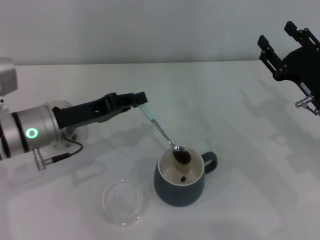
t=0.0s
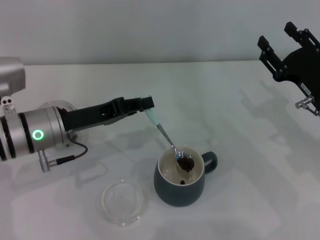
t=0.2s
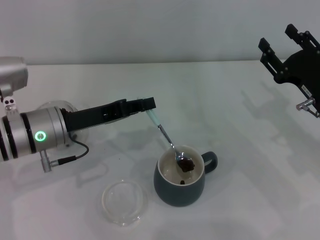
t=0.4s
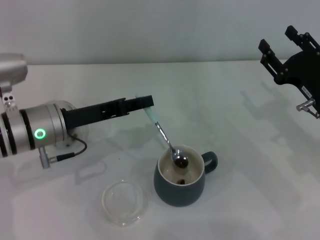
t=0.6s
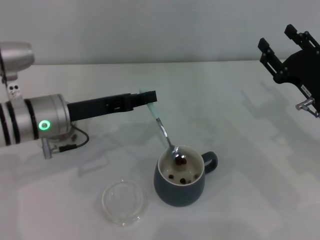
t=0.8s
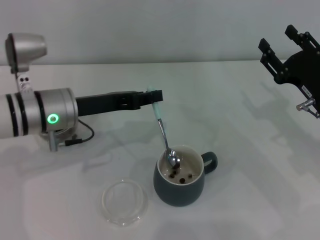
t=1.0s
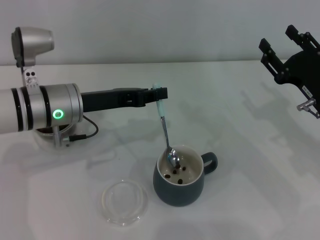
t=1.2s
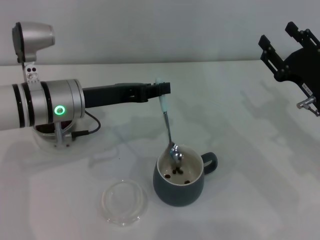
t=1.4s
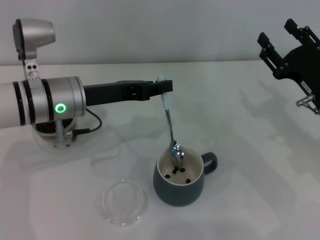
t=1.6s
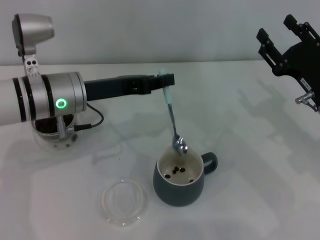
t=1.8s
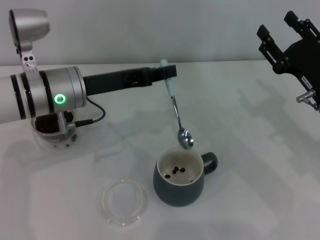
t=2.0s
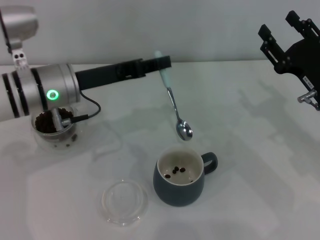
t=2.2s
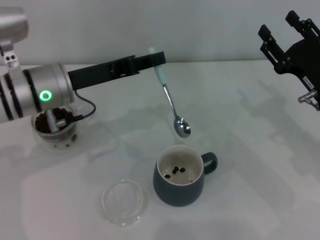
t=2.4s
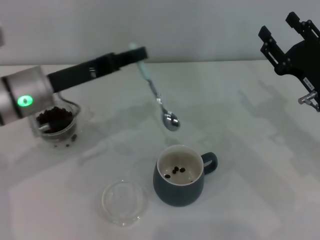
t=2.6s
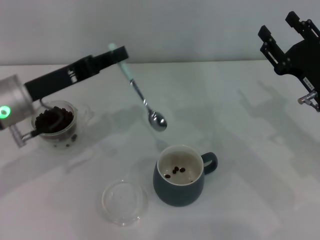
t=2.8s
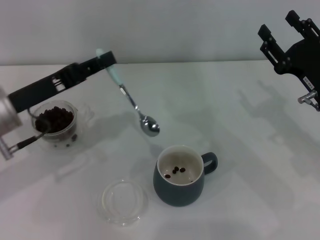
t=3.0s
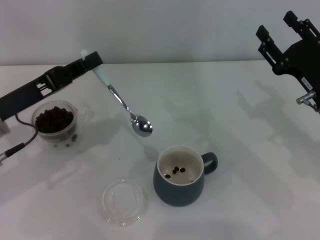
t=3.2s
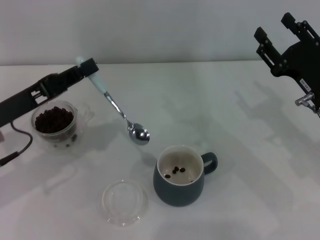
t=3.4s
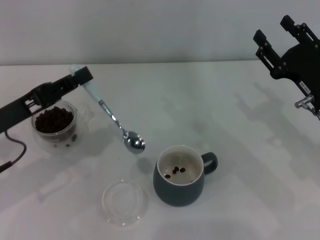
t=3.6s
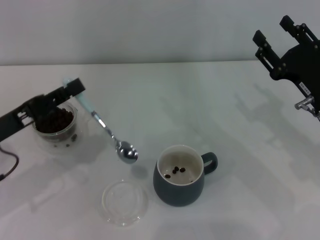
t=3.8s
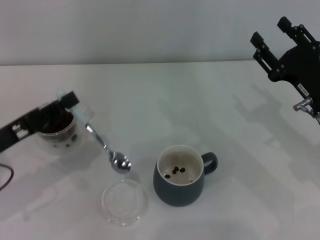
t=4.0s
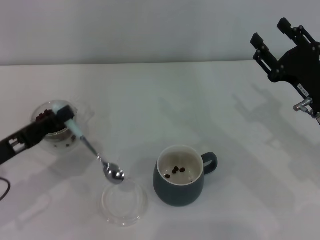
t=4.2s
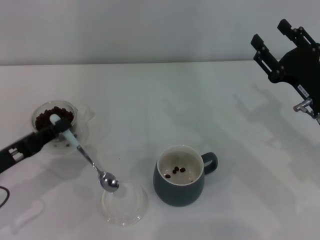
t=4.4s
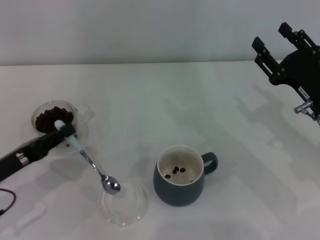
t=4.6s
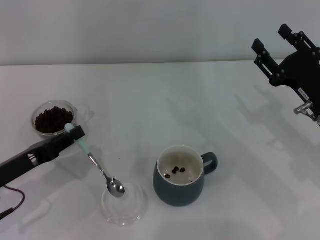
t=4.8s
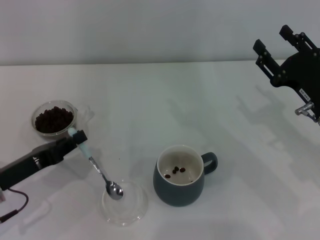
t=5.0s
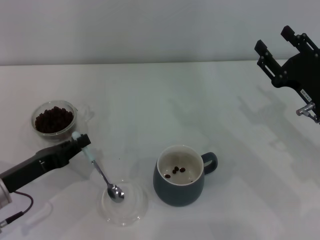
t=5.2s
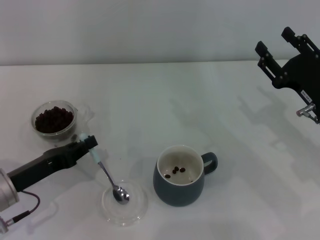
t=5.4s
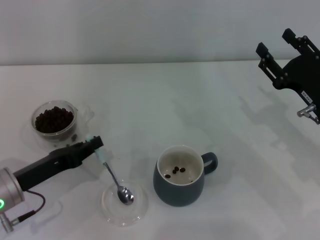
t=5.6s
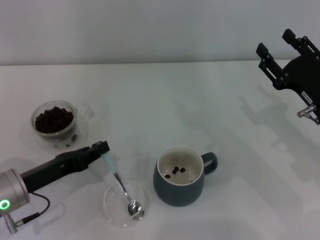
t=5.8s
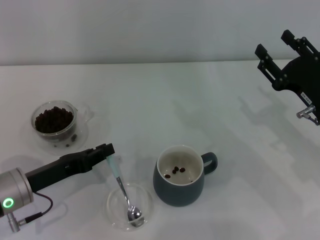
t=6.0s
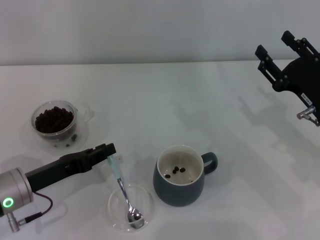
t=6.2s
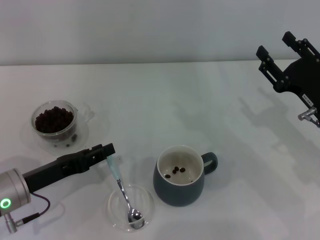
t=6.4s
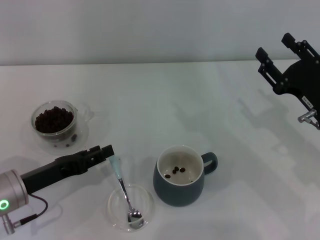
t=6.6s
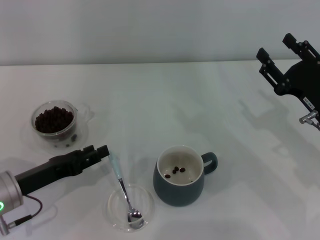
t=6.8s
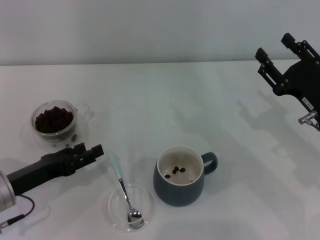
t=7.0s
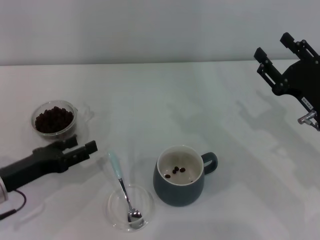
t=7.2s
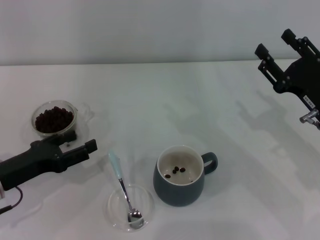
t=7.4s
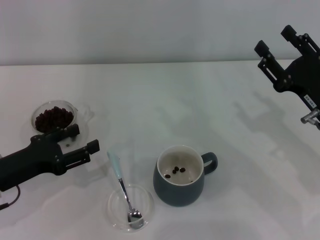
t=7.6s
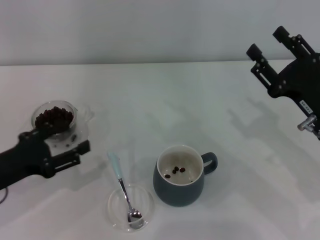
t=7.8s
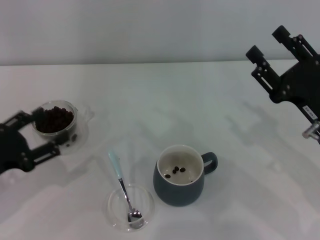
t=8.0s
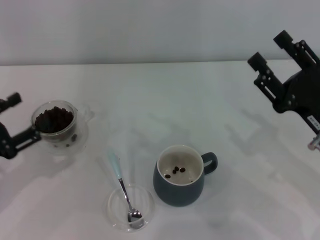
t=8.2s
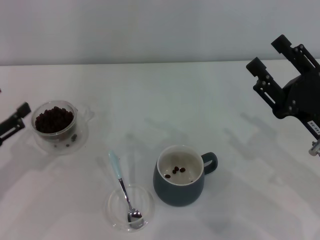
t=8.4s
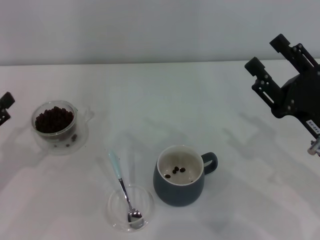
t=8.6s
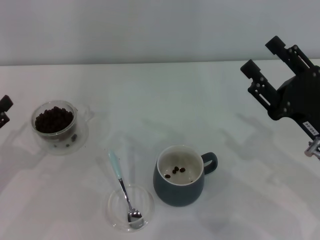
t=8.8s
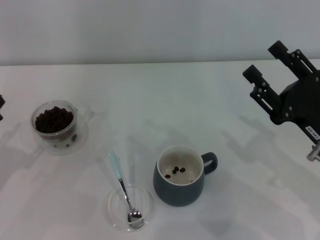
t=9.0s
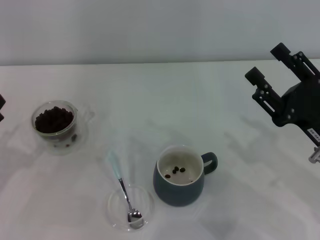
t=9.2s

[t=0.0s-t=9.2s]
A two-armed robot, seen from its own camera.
Task of the whole recording: Use a blue spoon to take out the coffee beans from the glass and pour them into the gray cup.
t=0.0s to t=1.6s: The left gripper ends up approximately 5 cm from where it was.
t=1.6s to t=3.0s: The left gripper is displaced to the left by approximately 10 cm.
t=3.0s to t=4.6s: The left gripper heads backward, downward and to the left, covering roughly 10 cm.
t=4.6s to t=6.2s: The left gripper shifts by about 5 cm.
t=6.2s to t=7.6s: The left gripper opens up.
t=7.6s to t=9.2s: The left gripper moves to the left, some 5 cm.

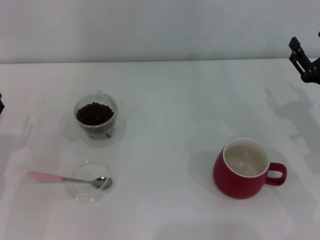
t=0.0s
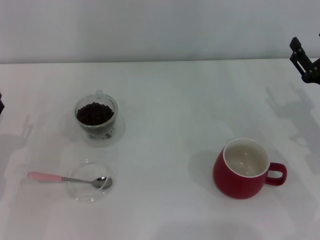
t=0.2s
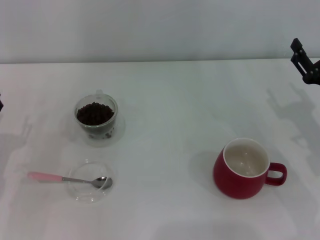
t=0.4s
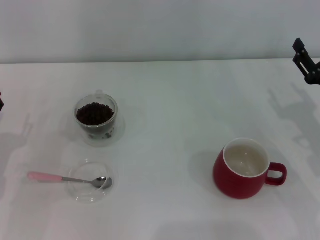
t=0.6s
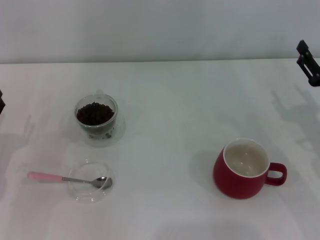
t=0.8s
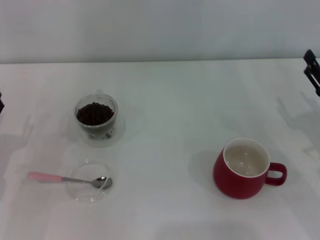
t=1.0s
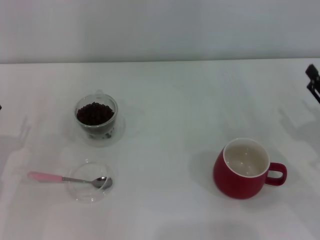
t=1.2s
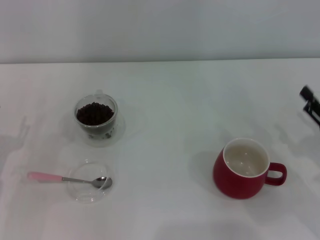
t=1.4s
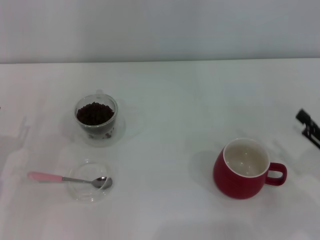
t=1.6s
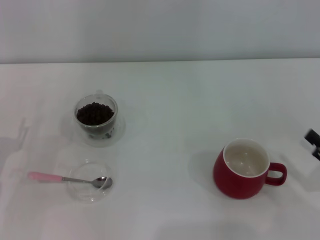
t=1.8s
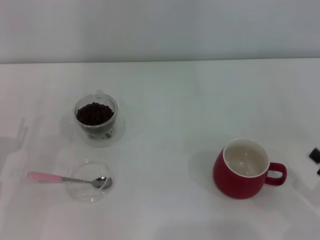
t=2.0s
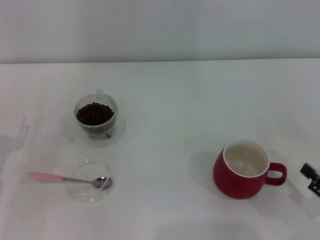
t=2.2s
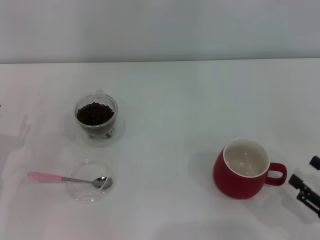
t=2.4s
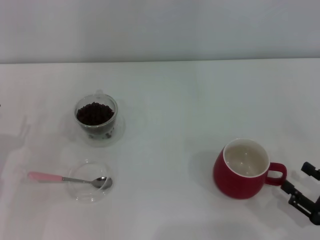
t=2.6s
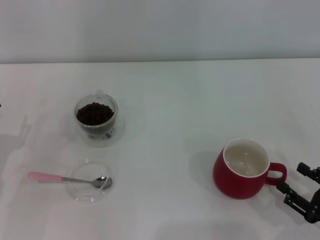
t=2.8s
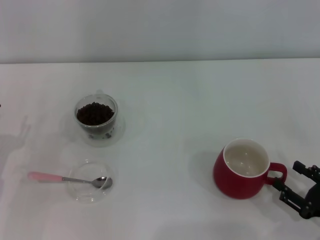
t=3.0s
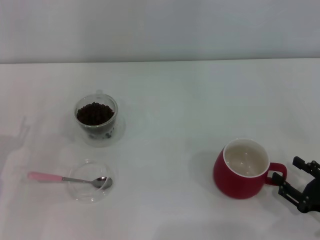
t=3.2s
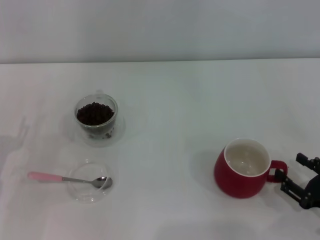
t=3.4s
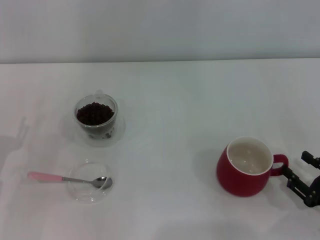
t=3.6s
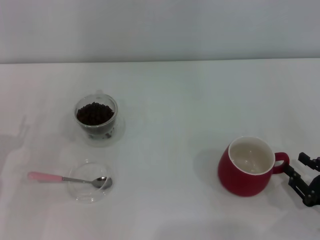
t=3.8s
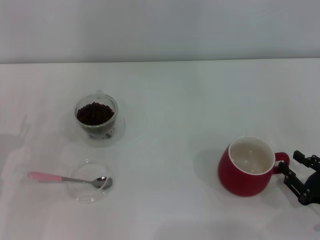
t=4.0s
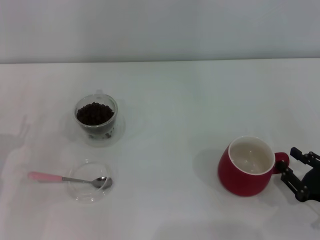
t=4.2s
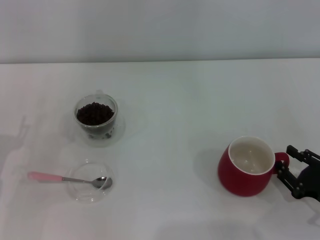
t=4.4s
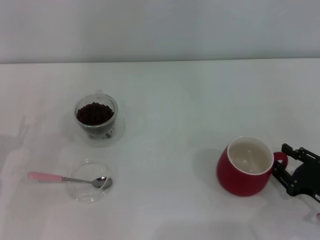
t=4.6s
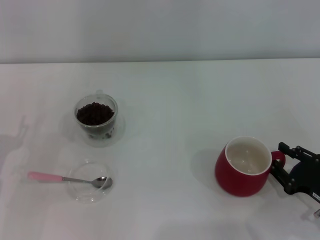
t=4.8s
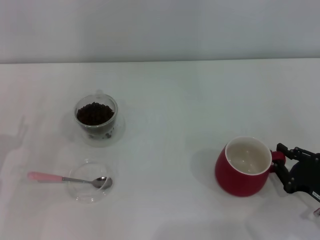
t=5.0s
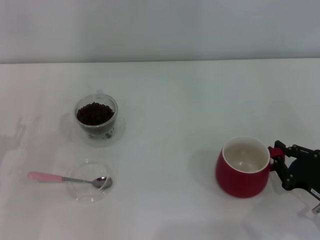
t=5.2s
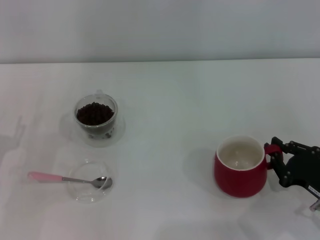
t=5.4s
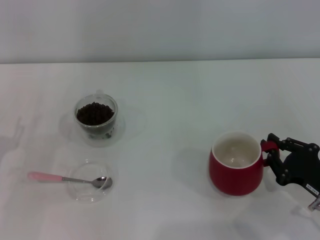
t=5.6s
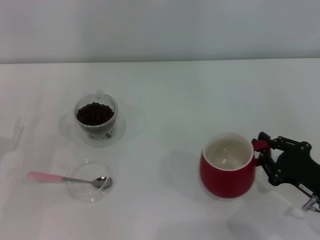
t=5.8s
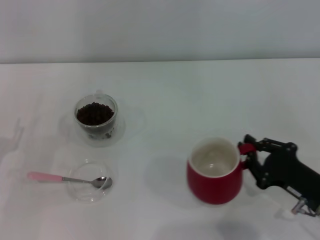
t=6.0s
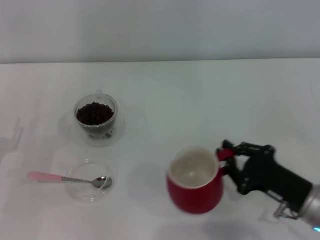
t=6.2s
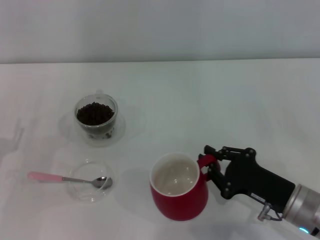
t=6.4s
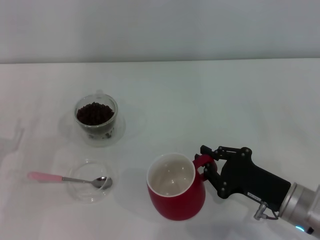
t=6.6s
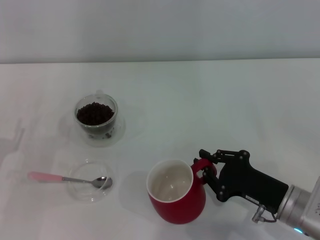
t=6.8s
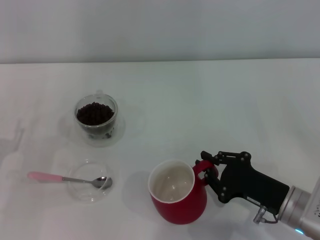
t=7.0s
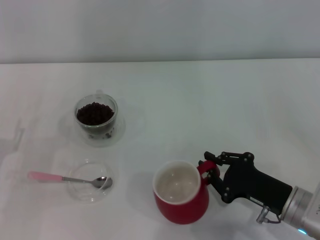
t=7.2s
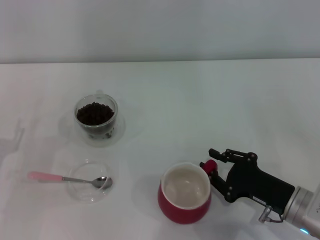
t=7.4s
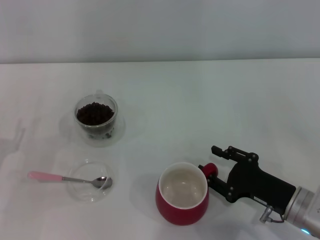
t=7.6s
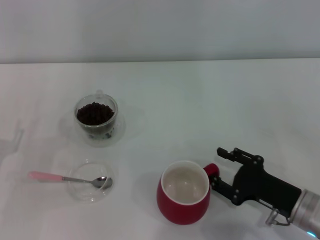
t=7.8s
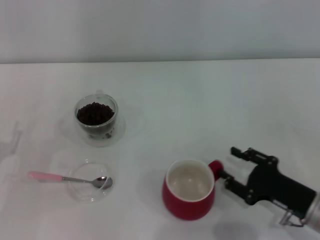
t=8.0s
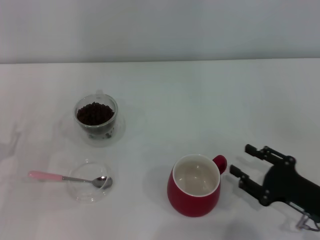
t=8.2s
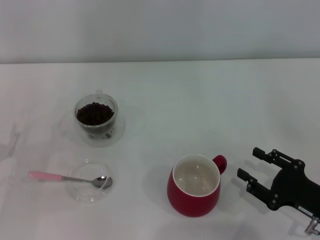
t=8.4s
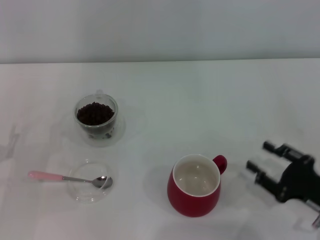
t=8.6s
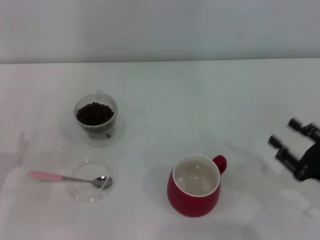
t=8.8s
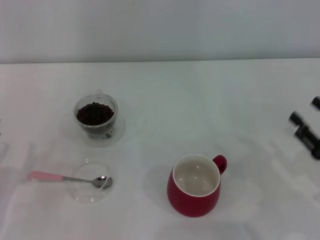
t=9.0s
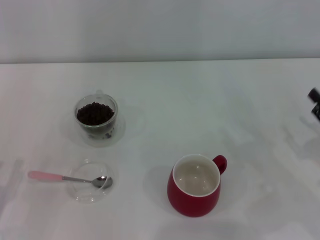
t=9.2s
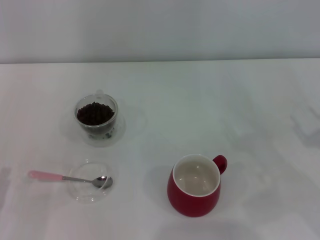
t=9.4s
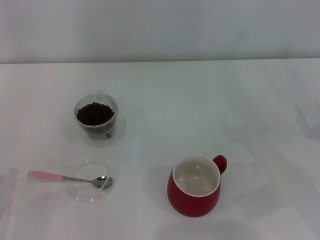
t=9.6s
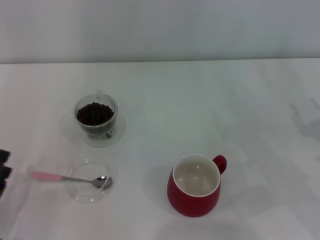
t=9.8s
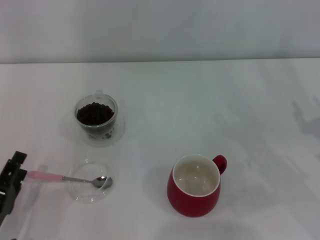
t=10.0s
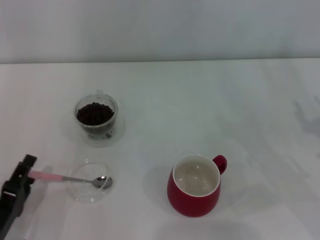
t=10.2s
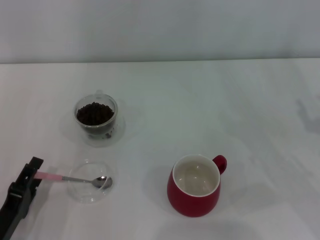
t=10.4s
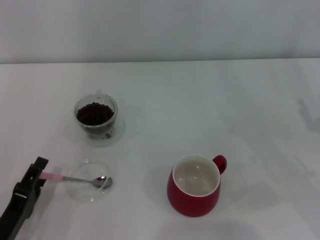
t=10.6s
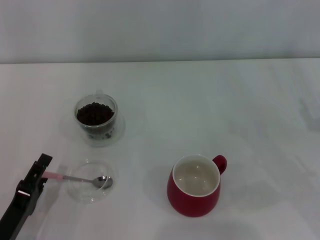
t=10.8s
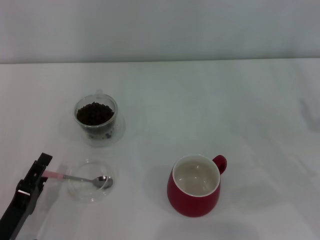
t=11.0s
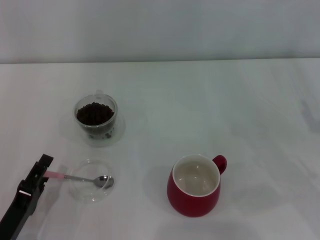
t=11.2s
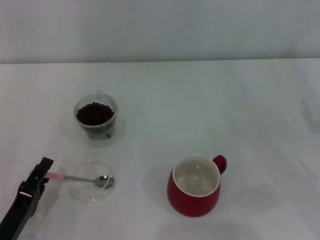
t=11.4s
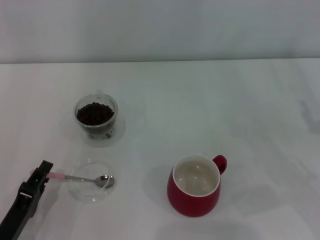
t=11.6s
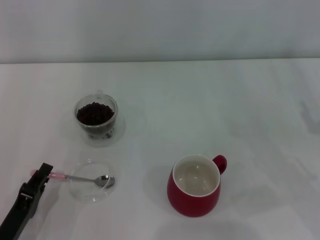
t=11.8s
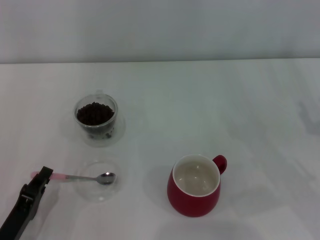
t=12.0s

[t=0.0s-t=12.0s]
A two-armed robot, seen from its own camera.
Task of the whole recording: Use a pink spoon to take out the coffee beans from the glass and pour them into the red cup.
t=0.0s to t=1.6s: The right gripper goes some 10 cm backward.
t=1.6s to t=3.0s: The right gripper changes place by roughly 5 cm.
t=3.0s to t=4.4s: The right gripper closes.
t=4.4s to t=6.0s: The right gripper changes place by some 5 cm, and closes.
t=6.0s to t=7.6s: The right gripper opens up.
t=7.6s to t=9.0s: The left gripper shifts some 5 cm backward, while the right gripper moves to the right, some 10 cm, and opens.
t=9.0s to t=10.4s: The left gripper shifts by roughly 5 cm. The right gripper changes place by about 5 cm.
t=10.4s to t=12.0s: The left gripper closes.

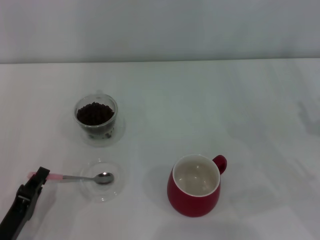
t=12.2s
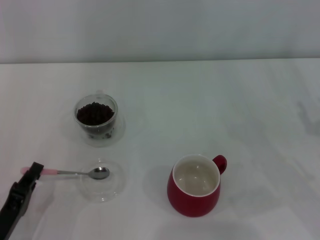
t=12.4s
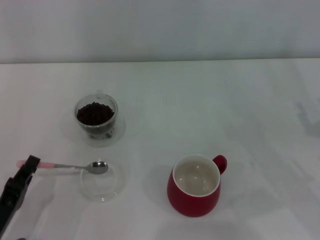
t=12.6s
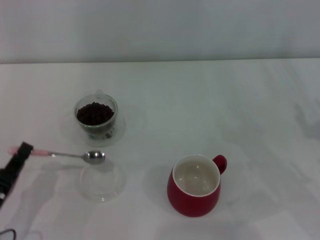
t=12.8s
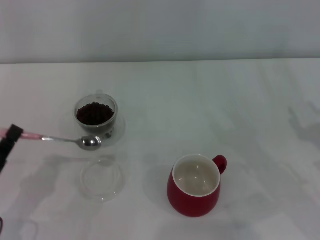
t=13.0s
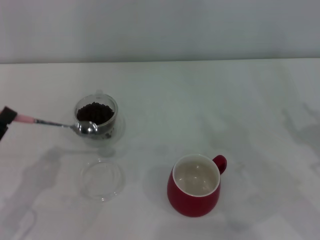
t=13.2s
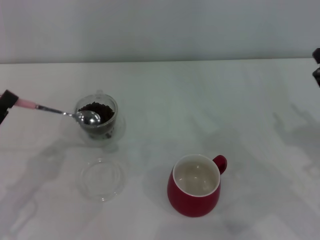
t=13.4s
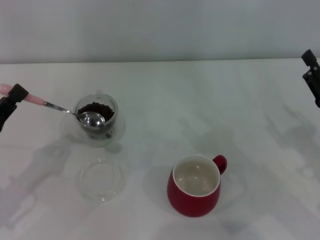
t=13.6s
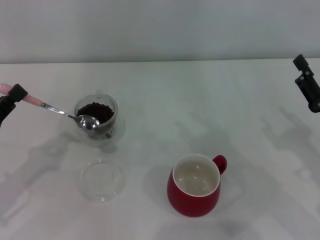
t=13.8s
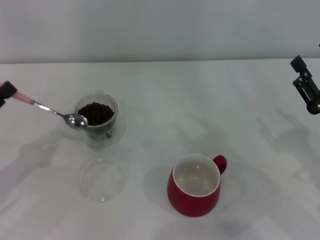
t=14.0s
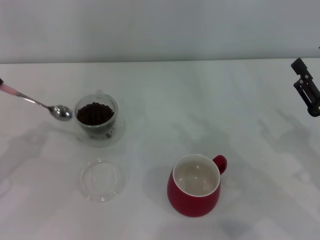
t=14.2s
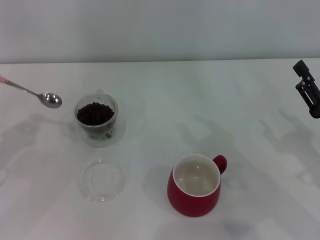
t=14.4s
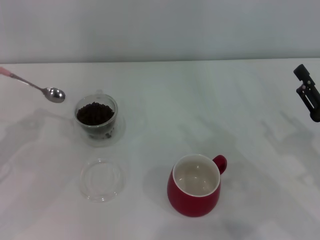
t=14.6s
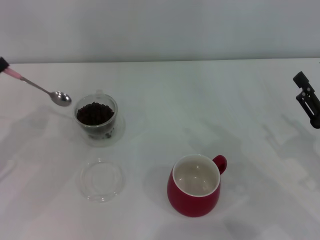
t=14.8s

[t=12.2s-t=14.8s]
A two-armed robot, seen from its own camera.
Task of the whole recording: Use a pink spoon to take out the coffee beans from the glass and pour them into the red cup.
t=12.2s to t=13.4s: The left gripper heads upward, forward and to the left, covering some 10 cm.
t=13.4s to t=14.8s: The left gripper moves forward, approximately 10 cm.
